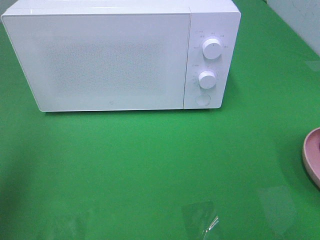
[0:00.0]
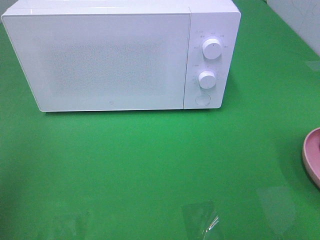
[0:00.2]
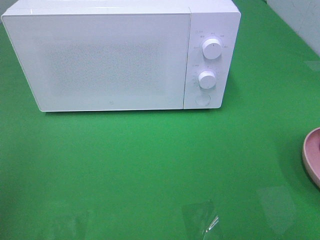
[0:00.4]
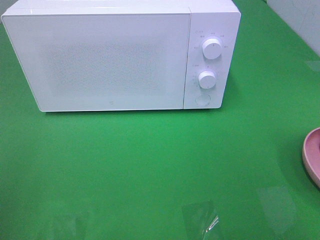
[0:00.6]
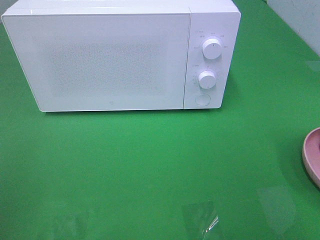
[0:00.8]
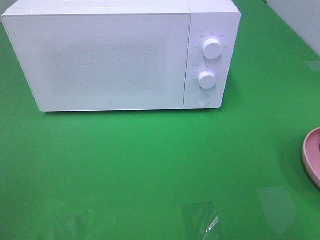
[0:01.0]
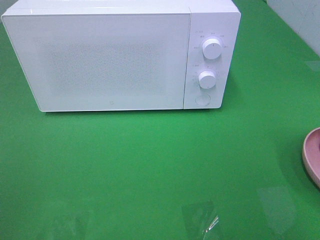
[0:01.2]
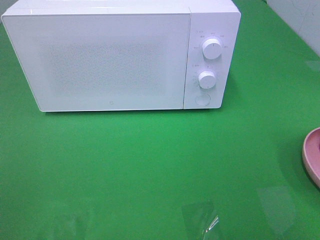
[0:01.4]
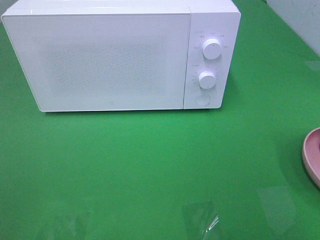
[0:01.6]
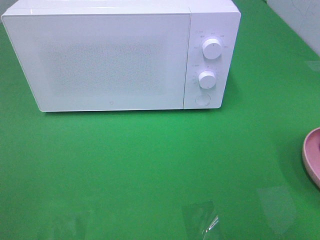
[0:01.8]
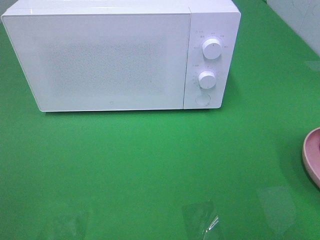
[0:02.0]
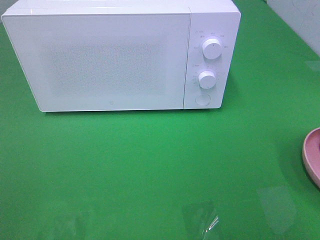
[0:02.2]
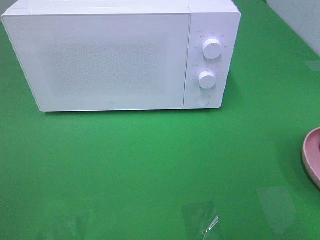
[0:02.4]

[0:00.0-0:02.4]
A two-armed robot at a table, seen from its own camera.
Task of the whole recording: Heat the burger.
0:00.0 to 0:01.2: The left gripper heads backward, covering approximately 15 cm.

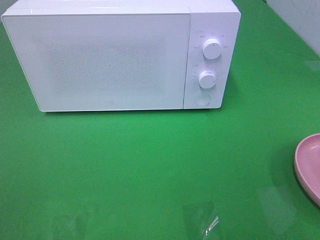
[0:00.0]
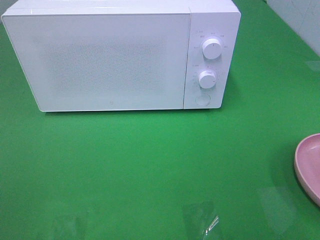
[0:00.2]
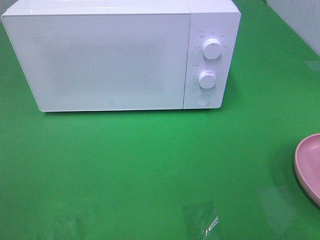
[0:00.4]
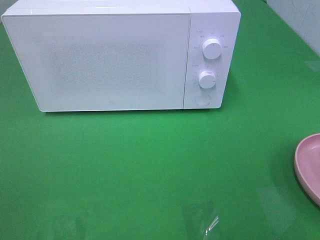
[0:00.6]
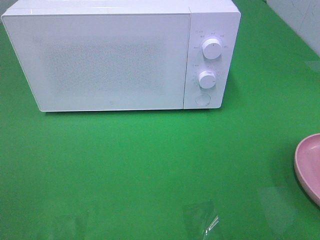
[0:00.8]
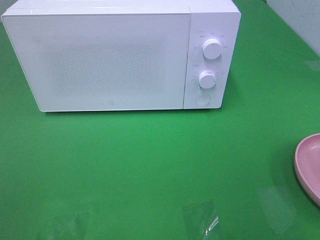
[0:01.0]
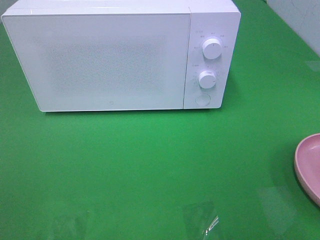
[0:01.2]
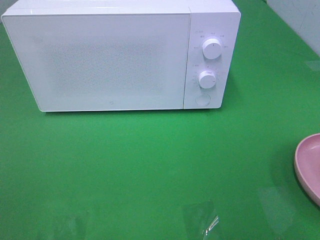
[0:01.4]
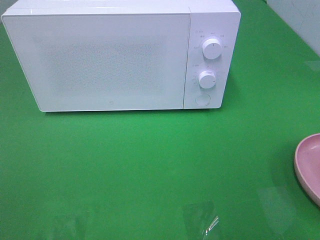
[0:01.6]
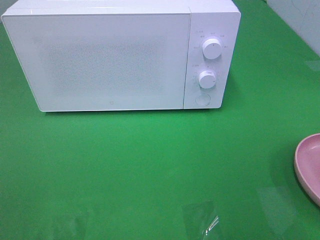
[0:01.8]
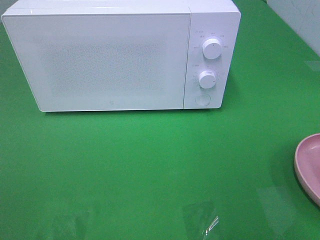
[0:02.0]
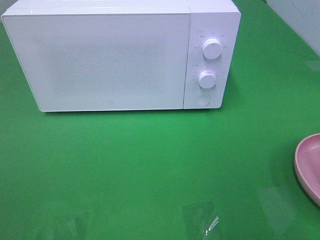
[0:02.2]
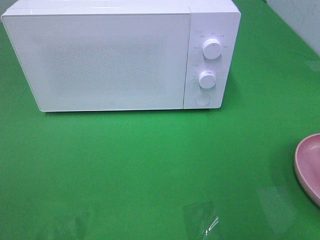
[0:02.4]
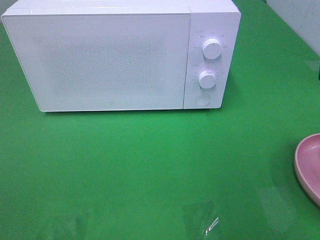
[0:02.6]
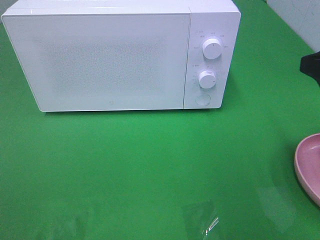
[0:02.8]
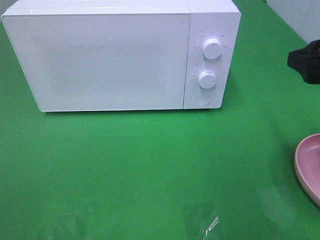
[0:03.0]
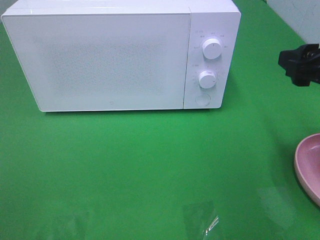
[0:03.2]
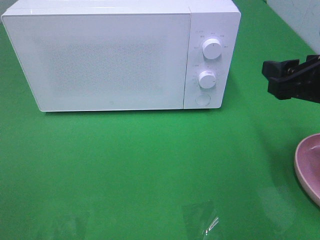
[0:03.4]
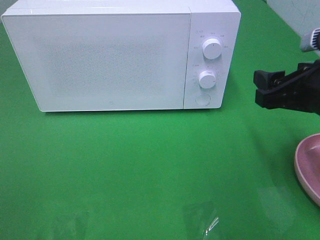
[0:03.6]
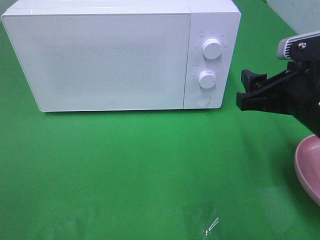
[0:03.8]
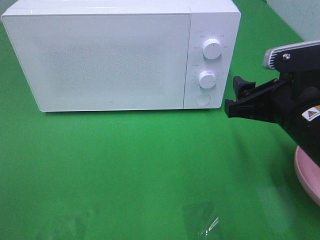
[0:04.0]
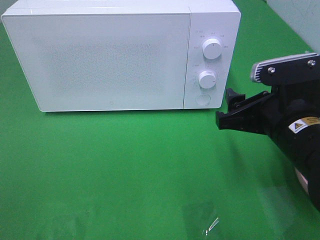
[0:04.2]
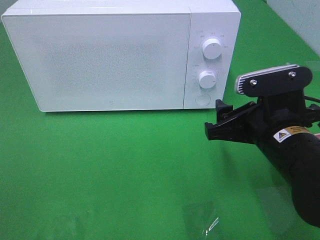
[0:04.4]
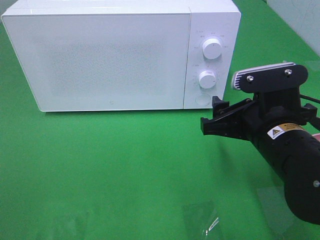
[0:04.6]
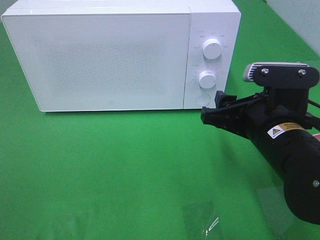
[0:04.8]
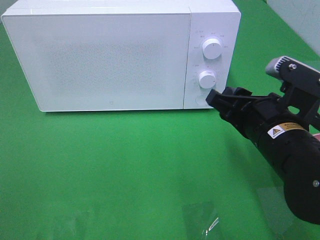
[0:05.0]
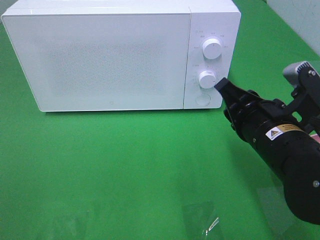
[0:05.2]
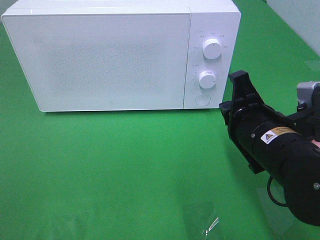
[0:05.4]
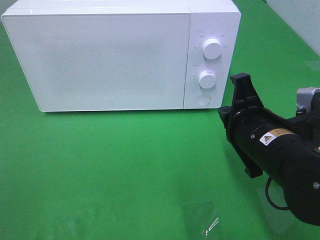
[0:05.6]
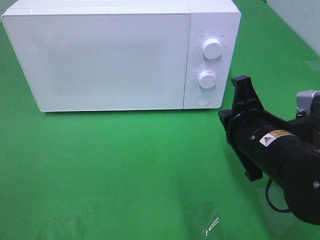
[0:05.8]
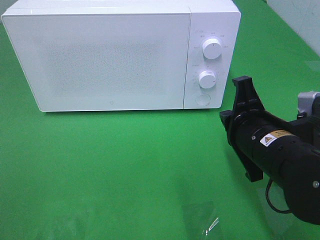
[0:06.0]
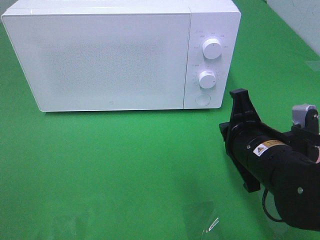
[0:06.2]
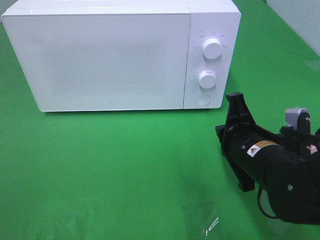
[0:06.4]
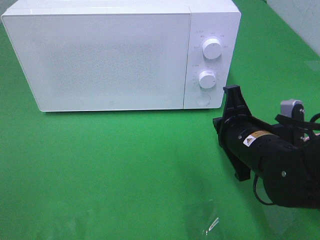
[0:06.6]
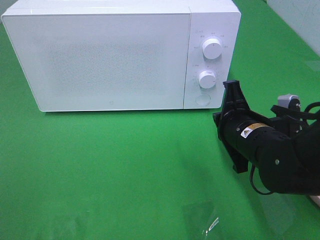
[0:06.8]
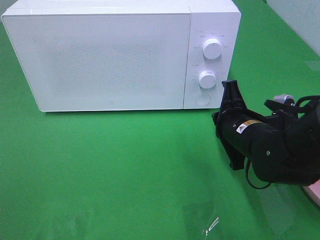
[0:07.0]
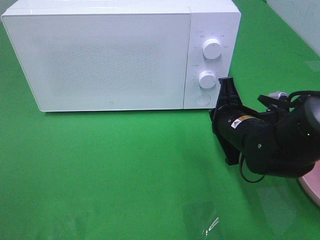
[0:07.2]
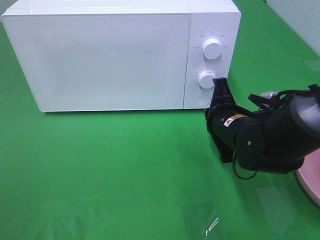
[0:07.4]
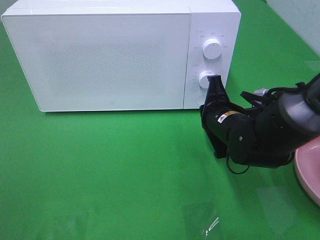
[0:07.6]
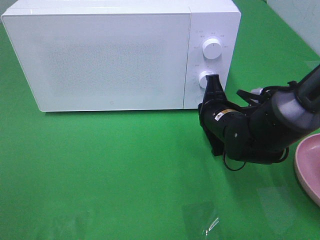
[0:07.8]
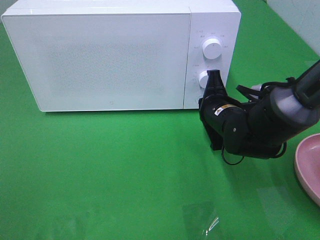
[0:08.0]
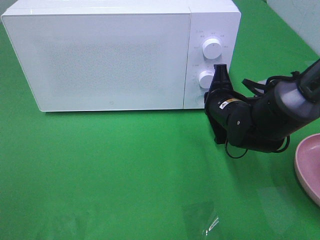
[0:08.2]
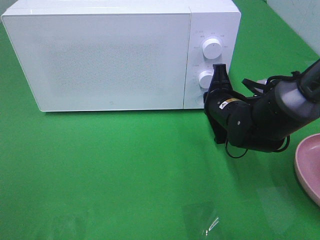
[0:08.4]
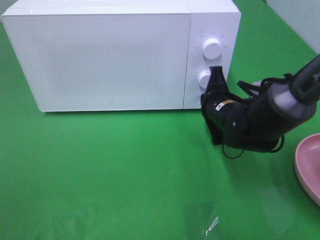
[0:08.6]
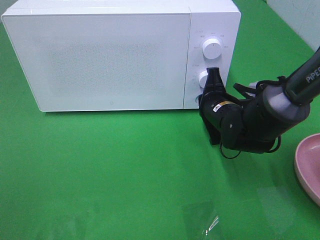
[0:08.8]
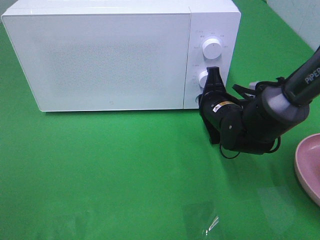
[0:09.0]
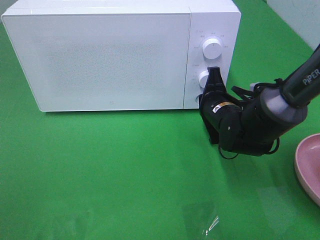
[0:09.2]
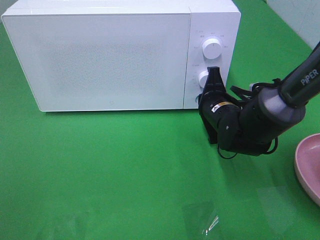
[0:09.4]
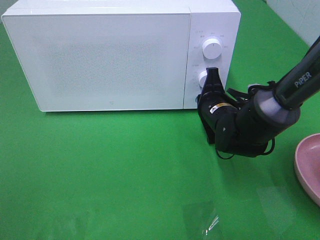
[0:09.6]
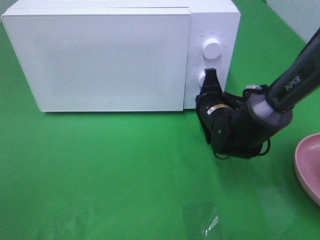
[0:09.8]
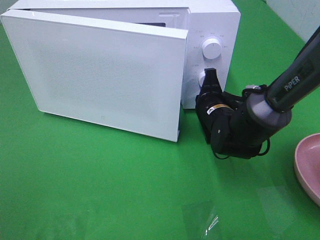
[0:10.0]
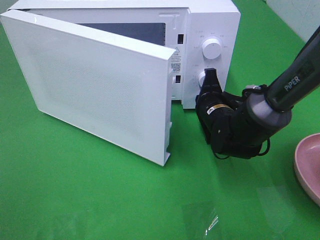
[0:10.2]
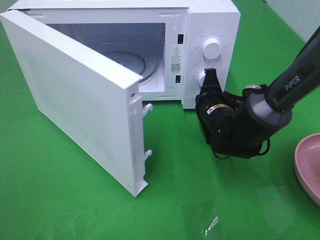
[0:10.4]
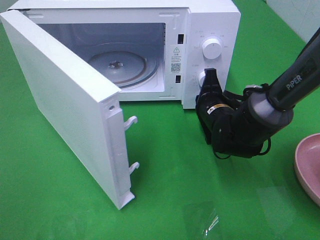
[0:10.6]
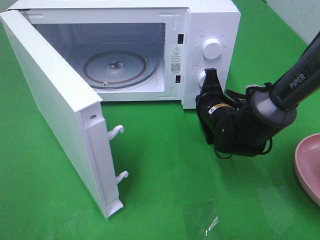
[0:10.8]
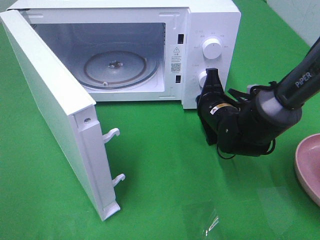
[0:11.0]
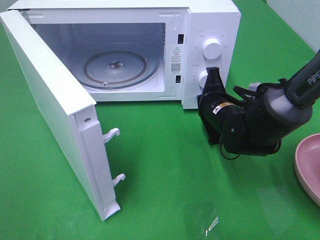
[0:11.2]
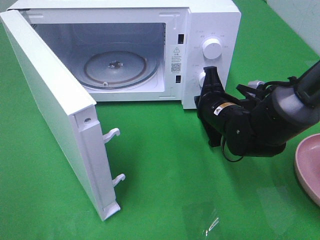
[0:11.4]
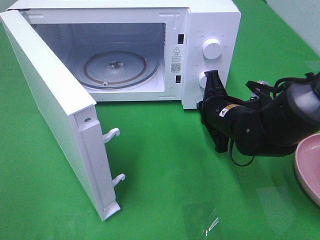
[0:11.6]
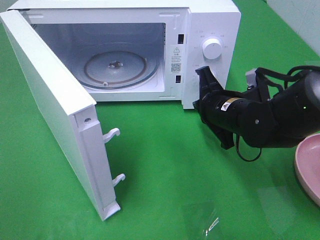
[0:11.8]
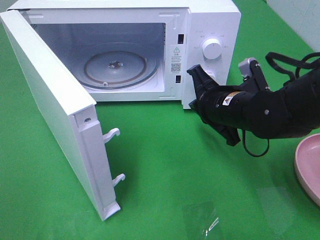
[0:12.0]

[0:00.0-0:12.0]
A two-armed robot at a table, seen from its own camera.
Task of the whole recording: Heat the burger.
Step, 0:00.0 to 0:11.4: Right hand: press the switch.
0:01.6 to 0:03.0: The right gripper heads forward, covering about 15 cm.
0:03.0 to 0:04.4: The right gripper shifts roughly 15 cm to the left and downward.
0:04.4 to 0:06.0: The right gripper closes up.
0:06.0 to 0:07.6: The right gripper moves forward and downward, about 10 cm.
0:07.6 to 0:09.0: The grippers stay close to where they were, moving slightly.
0:10.4 to 0:12.0: The right gripper moves upward and backward, approximately 10 cm.

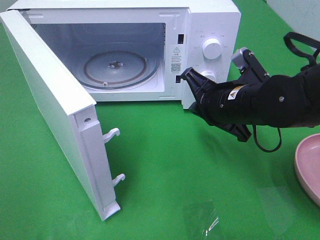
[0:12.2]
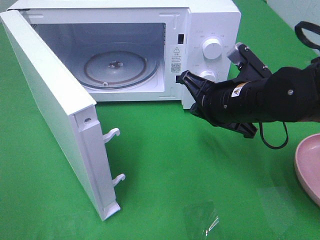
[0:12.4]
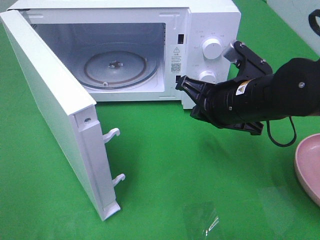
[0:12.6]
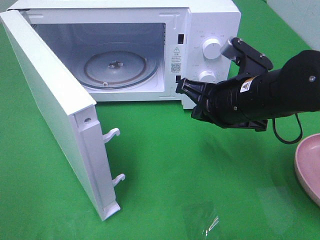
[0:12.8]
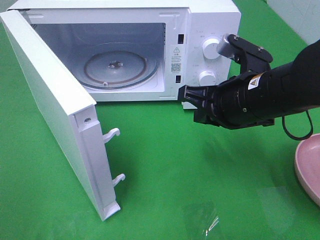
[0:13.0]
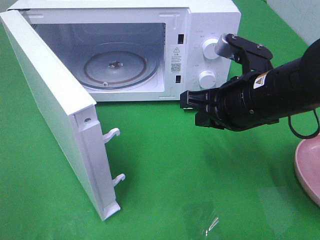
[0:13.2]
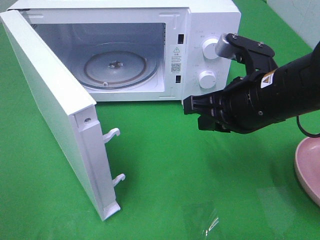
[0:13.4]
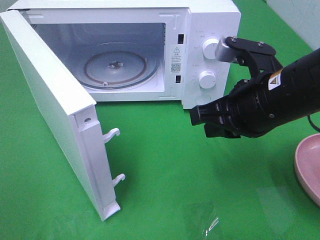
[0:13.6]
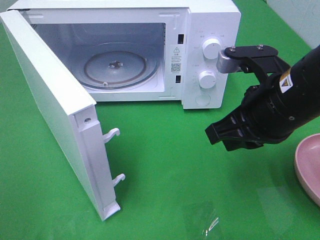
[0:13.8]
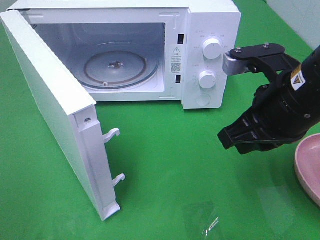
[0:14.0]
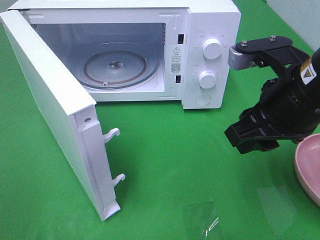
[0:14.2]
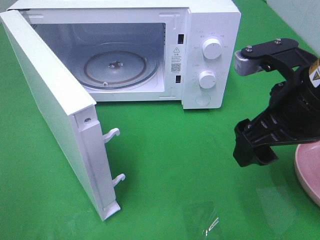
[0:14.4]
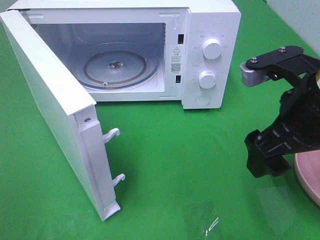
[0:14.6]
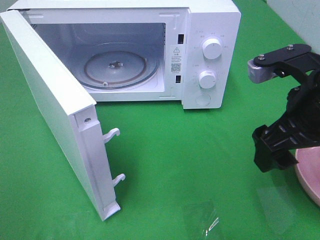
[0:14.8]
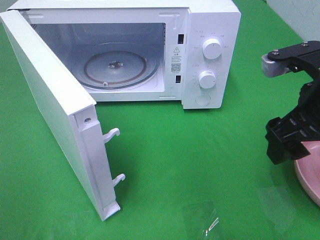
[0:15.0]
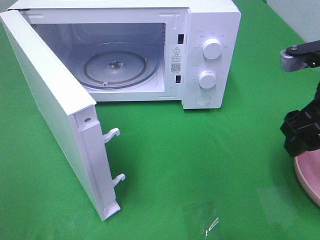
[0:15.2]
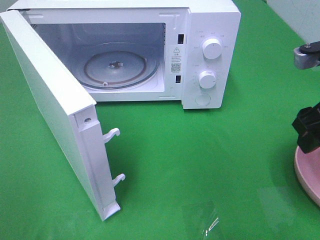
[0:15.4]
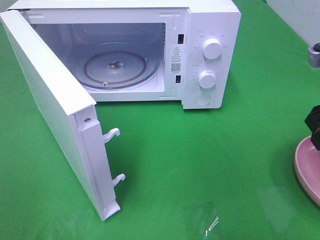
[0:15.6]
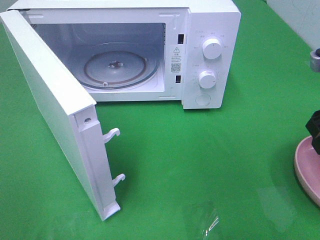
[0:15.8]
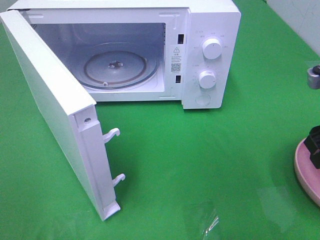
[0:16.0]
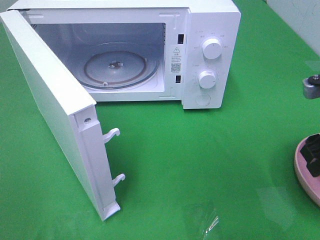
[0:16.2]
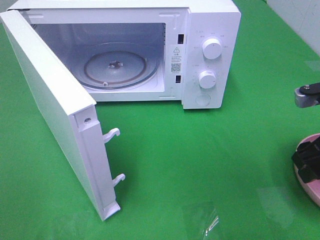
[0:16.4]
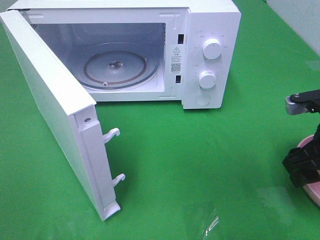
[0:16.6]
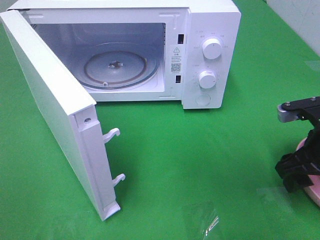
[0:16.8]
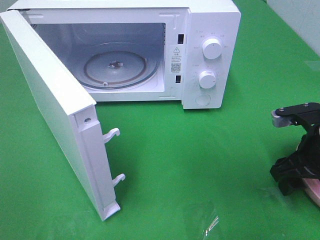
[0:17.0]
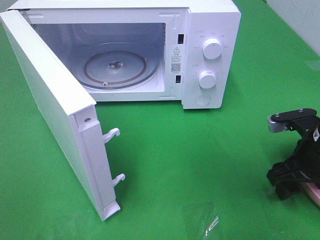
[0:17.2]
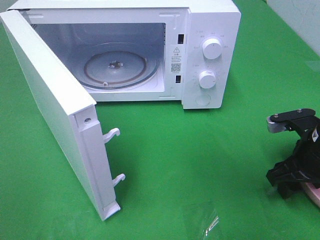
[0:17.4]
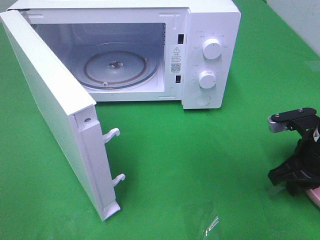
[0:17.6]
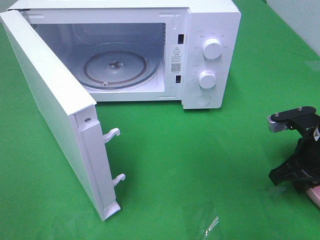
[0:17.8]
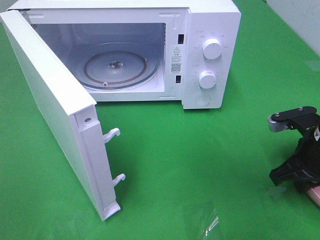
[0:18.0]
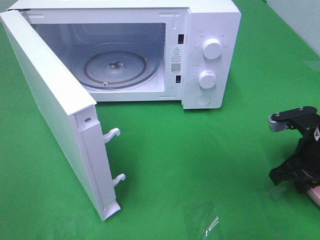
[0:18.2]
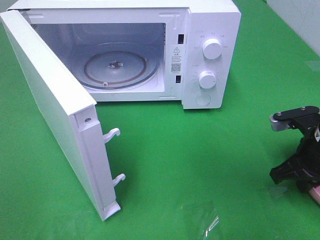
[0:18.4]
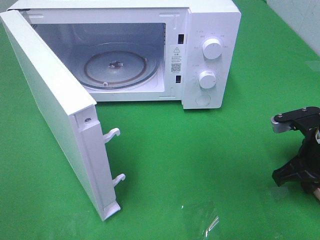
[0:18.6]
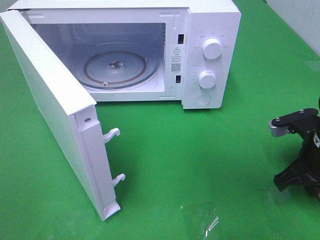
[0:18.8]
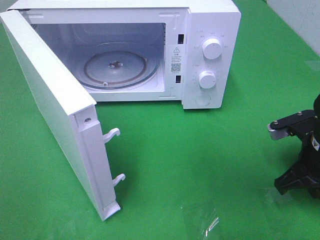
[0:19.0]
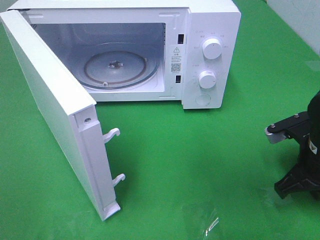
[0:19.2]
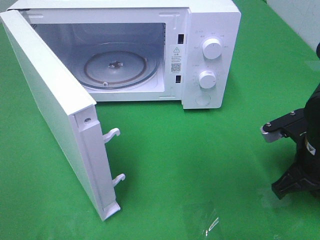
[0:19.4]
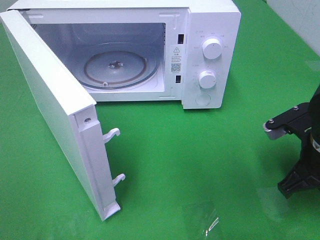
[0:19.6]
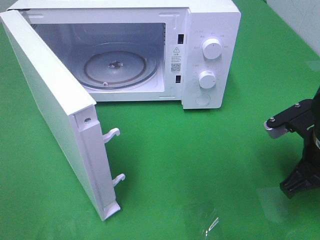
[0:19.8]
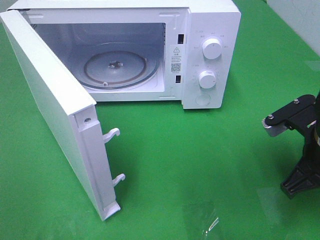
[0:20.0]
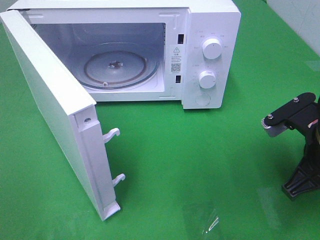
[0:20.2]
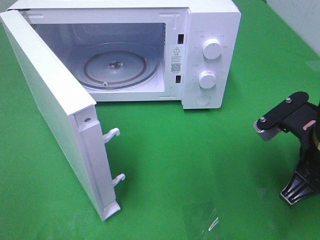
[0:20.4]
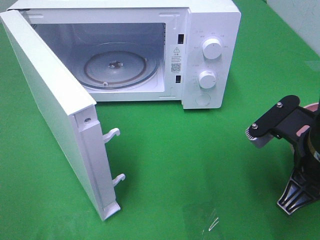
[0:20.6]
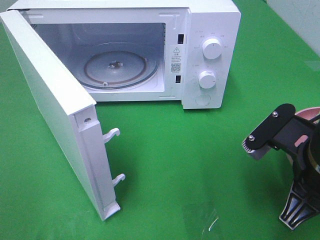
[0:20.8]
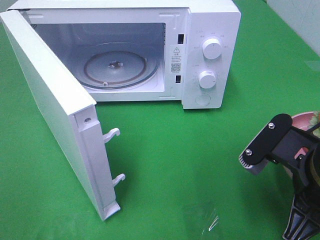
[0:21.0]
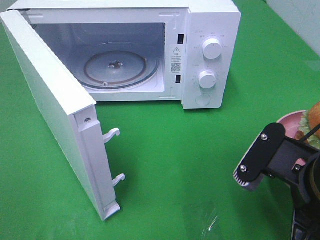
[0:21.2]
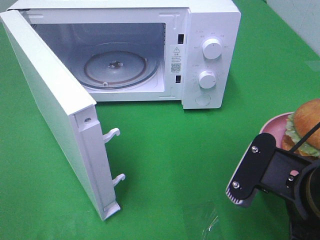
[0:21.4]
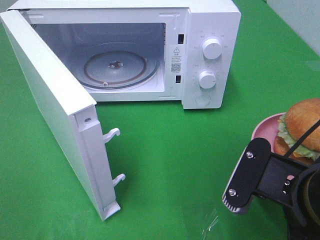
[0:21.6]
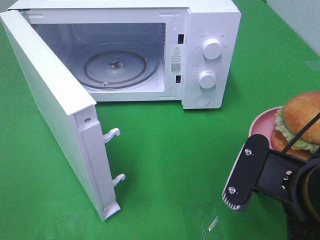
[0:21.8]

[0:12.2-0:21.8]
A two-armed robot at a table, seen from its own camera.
Task of the whole recording: Heat the burger.
Step, 0:12.2 to 0:17.8: Right hand: grab the plate with the hamburger.
0:12.2 to 0:13.8: The right gripper goes roughly 10 cm upward and backward.
0:13.8 to 0:15.4: The right gripper shifts about 10 cm to the right, and opens.
0:15.4 to 0:17.0: The right gripper is displaced downward by about 10 cm.
0:17.0 to 0:18.6: The right gripper closes up.
0:18.6 to 0:20.2: The right gripper is displaced upward by roughly 5 cm.
0:20.2 to 0:21.8: The right gripper shifts some 10 cm backward and to the left.
